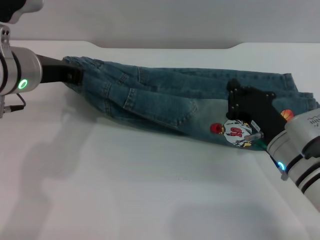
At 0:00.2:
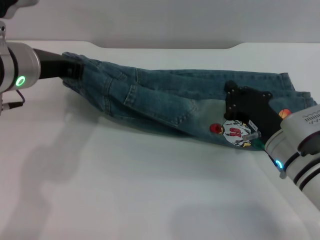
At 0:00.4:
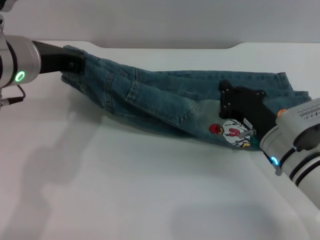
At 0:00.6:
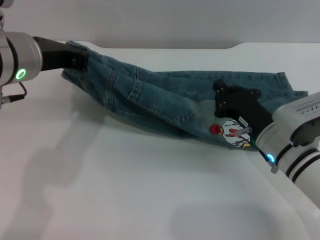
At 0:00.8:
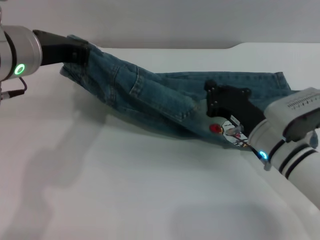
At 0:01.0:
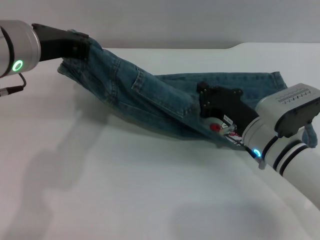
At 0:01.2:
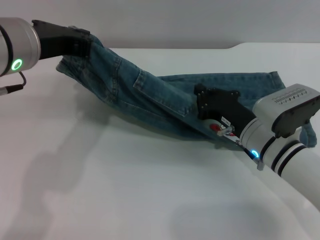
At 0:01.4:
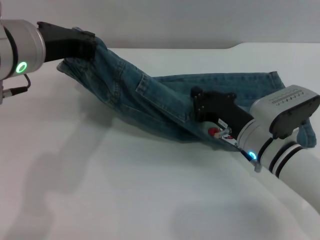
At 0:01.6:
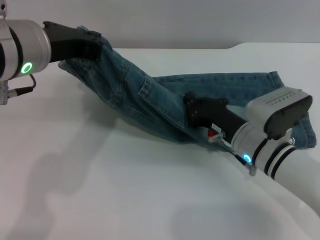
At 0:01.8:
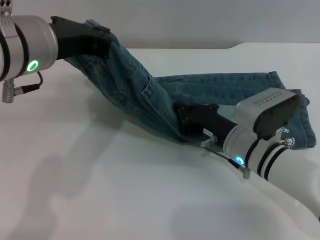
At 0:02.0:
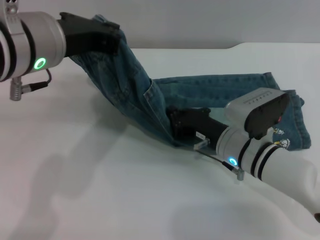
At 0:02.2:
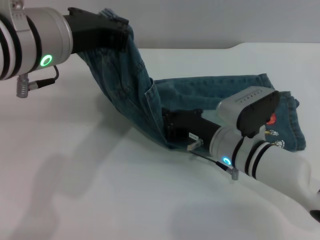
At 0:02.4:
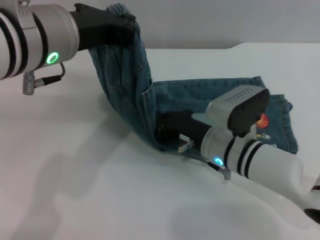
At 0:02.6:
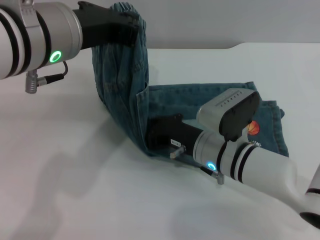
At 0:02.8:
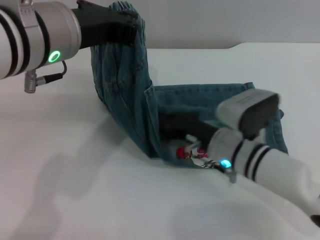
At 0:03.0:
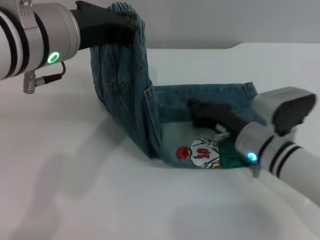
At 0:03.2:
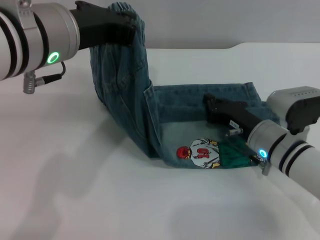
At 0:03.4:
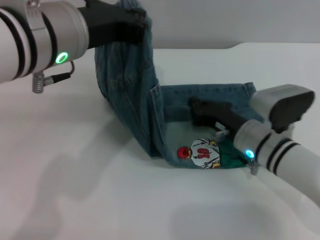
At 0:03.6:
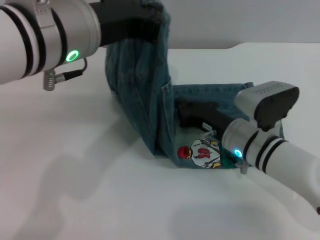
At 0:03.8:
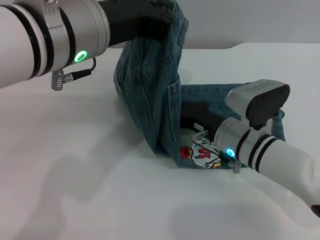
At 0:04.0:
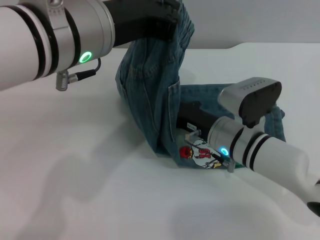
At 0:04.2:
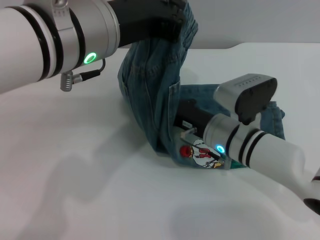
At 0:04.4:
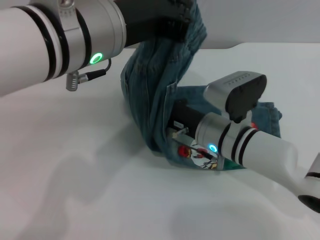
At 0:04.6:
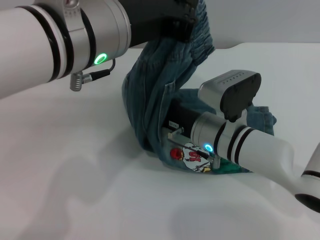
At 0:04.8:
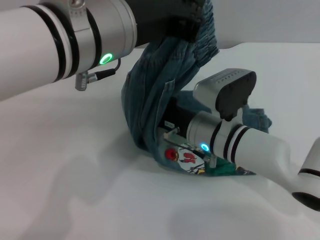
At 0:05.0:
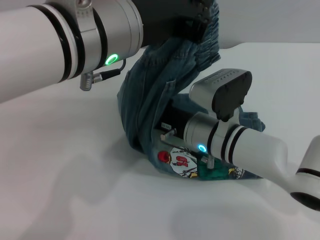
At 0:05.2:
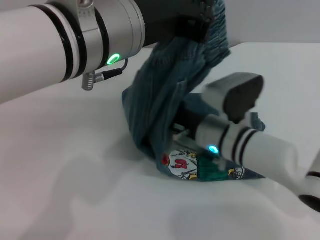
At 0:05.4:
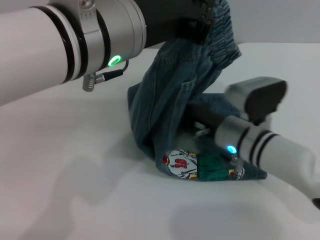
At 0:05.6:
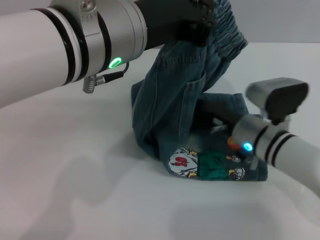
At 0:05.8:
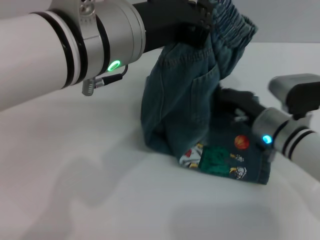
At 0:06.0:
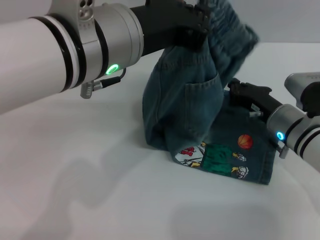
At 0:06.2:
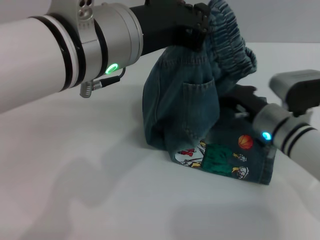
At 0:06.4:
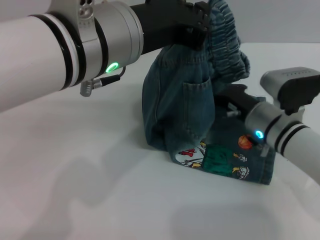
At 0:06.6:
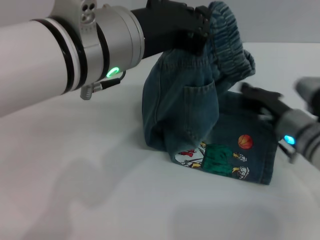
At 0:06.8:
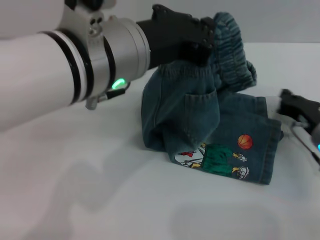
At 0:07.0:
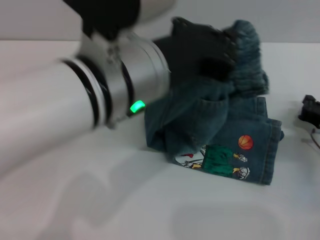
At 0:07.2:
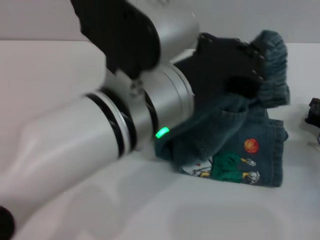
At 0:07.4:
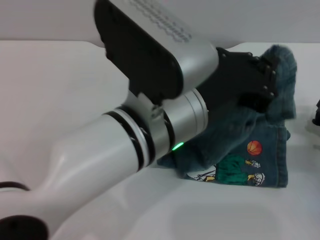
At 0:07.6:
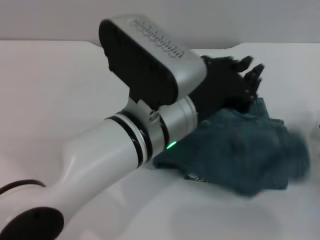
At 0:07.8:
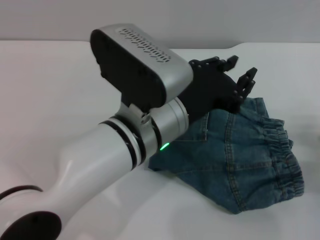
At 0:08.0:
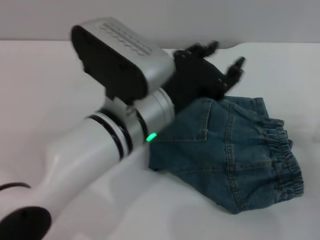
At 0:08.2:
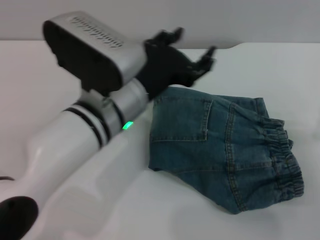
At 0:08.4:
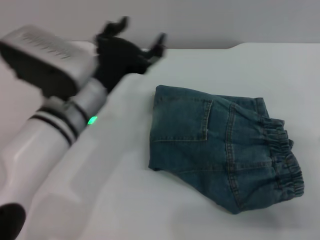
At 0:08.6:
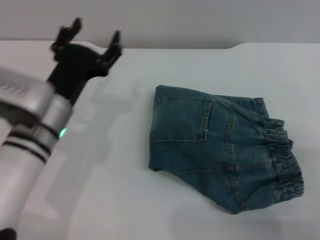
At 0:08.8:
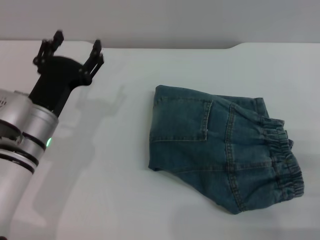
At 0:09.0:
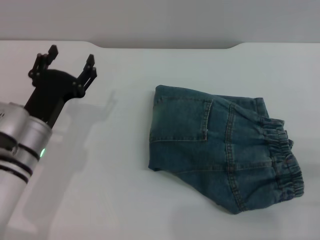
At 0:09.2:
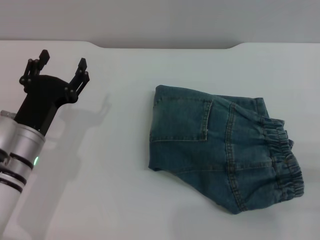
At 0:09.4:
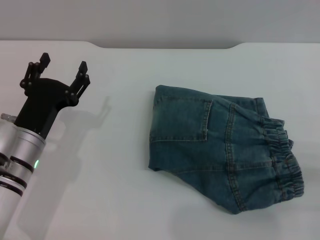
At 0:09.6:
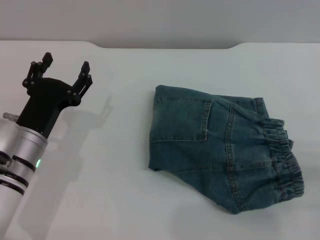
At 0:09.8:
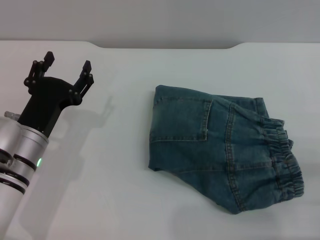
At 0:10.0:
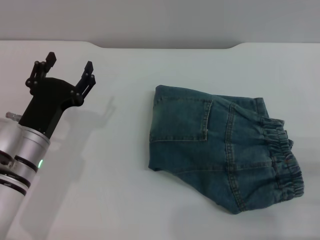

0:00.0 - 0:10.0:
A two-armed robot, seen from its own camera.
Step, 0:00.0 - 0:07.8: Fold the pants from left to right with the left gripper.
0:00.0 - 0:01.4: The left gripper ends up about 5 cm from where it was.
0:04.2 - 0:05.8: The right gripper is displaced to the right by roughly 10 cm.
0:05.8 - 0:07.2: The left gripper moves some 5 cm, while the right gripper is displaced to the right by approximately 10 cm.
0:07.2 - 0:08.6: The left gripper goes roughly 20 cm downward, to the left and forward, and opens its fingers. Meanwhile the right gripper shifts approximately 10 cm backward and upward.
0:08.6 - 0:10.0: The left gripper moves approximately 5 cm, while the right gripper opens its fingers.
